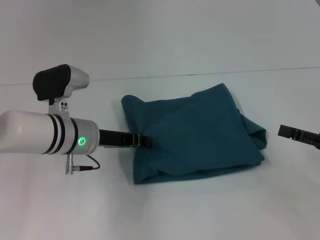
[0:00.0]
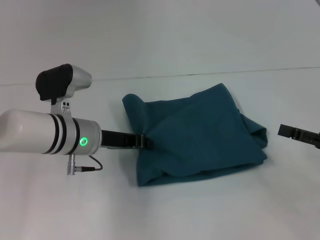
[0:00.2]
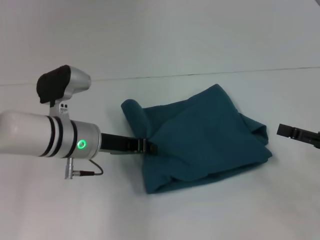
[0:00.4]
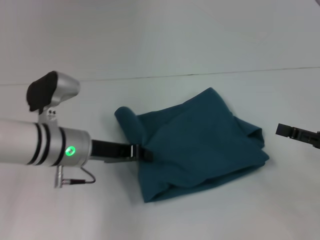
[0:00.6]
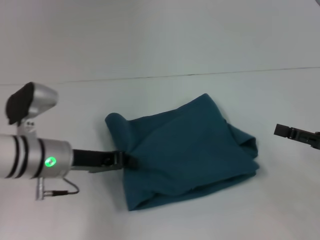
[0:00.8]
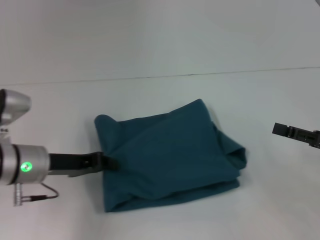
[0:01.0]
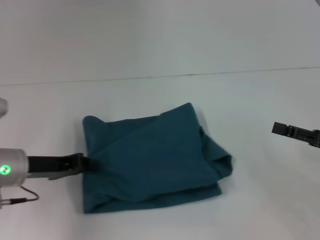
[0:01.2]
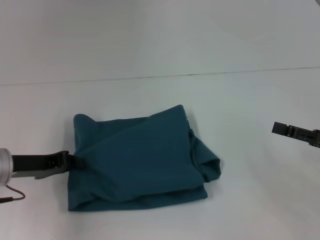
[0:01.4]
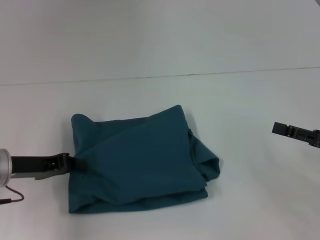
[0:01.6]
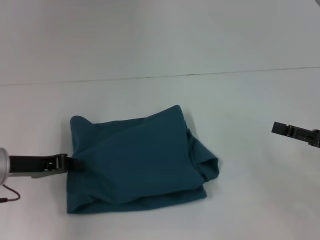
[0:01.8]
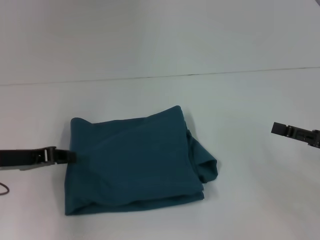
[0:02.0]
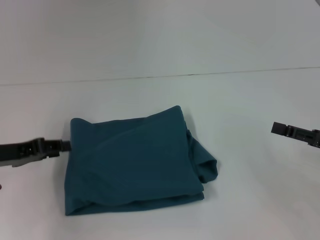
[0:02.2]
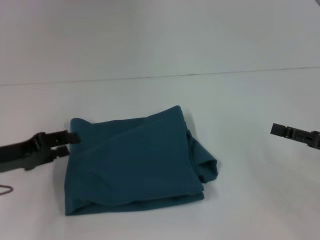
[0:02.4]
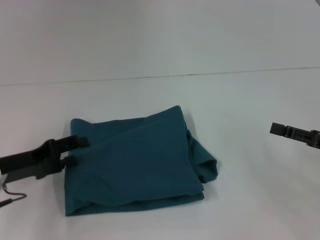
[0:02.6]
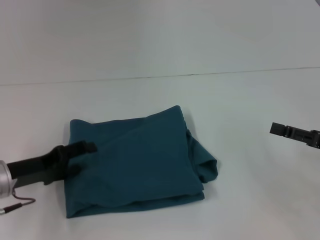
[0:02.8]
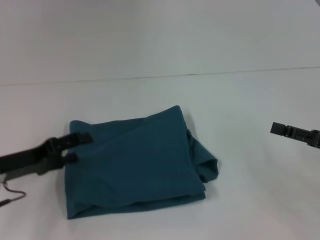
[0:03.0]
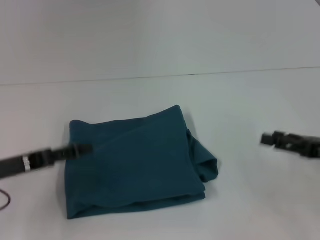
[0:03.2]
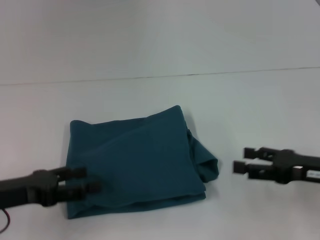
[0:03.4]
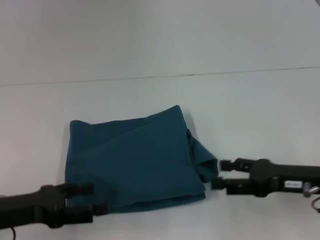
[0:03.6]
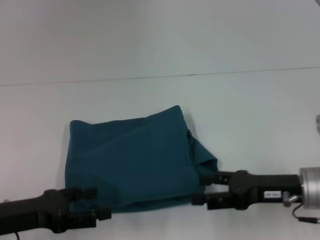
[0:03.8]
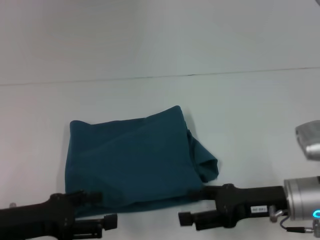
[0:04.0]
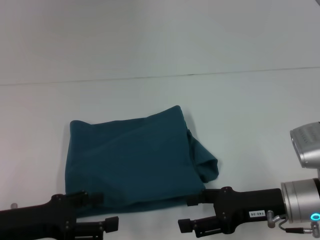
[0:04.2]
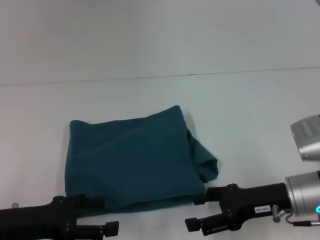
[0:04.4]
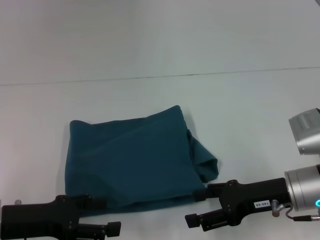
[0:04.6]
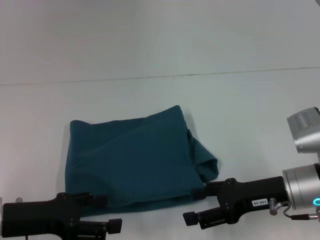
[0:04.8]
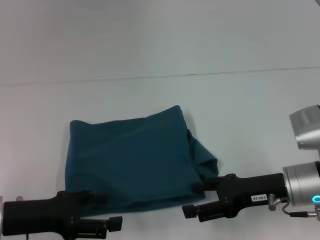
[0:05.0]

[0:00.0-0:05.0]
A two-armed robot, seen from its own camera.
0:00.0 to 0:01.6: The left gripper travels to the left and backward by some 15 cm.
0:01.6 to 0:03.4: The left gripper travels backward by about 5 cm, and opens its fingers.
0:03.4 to 0:05.0: The right gripper goes about 10 cm to the left.
